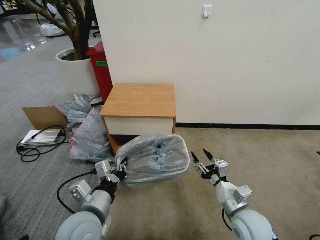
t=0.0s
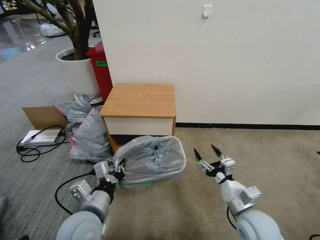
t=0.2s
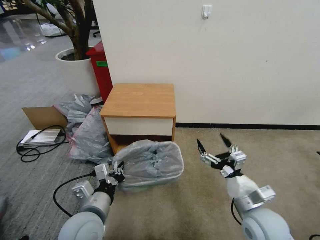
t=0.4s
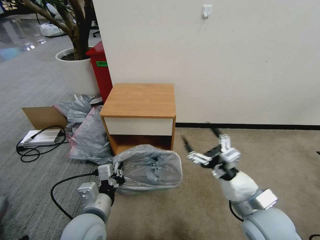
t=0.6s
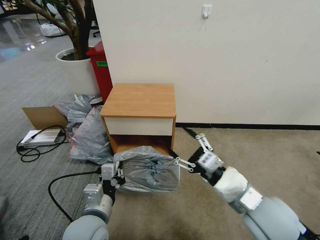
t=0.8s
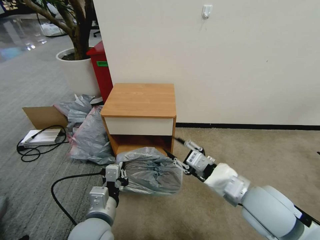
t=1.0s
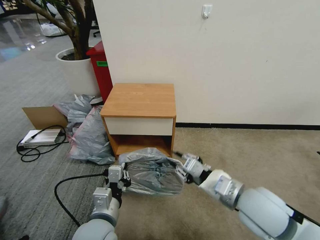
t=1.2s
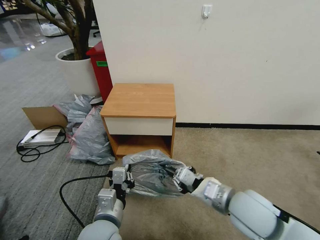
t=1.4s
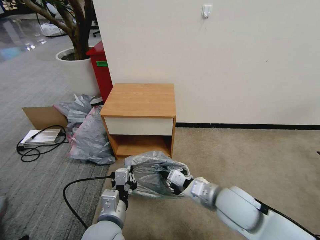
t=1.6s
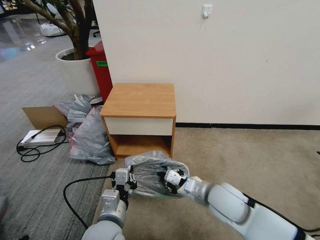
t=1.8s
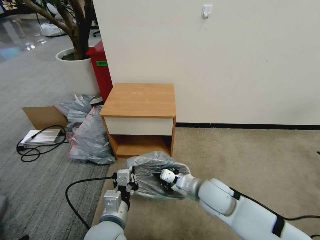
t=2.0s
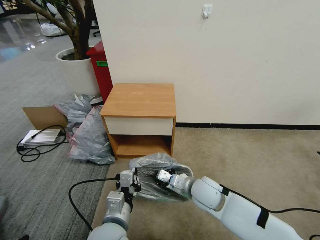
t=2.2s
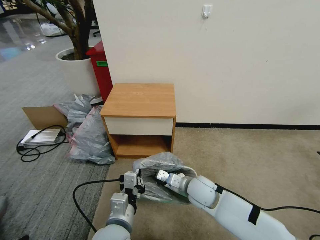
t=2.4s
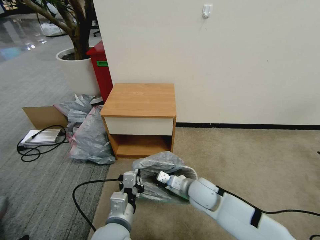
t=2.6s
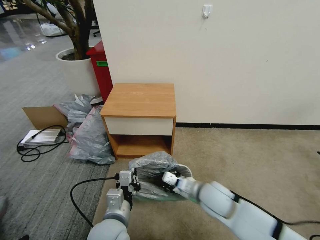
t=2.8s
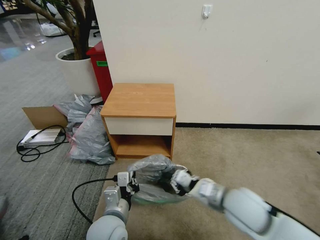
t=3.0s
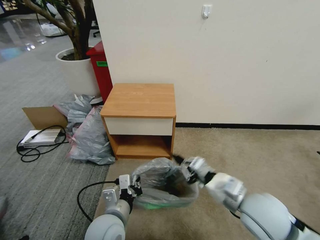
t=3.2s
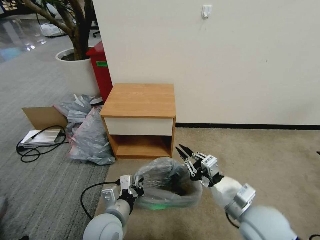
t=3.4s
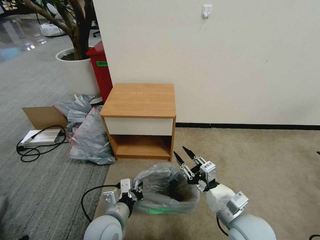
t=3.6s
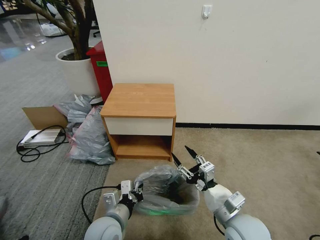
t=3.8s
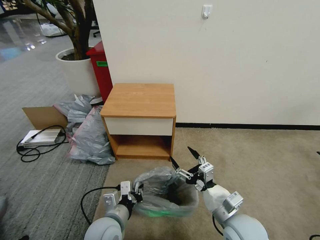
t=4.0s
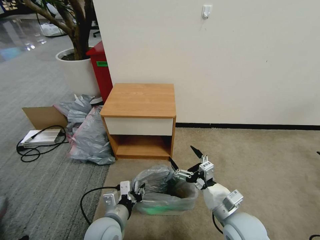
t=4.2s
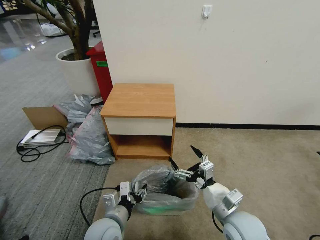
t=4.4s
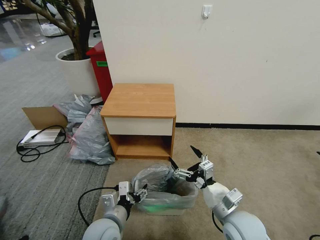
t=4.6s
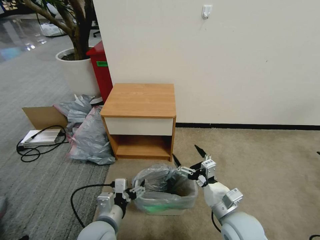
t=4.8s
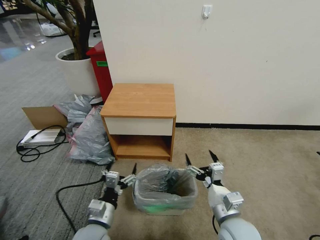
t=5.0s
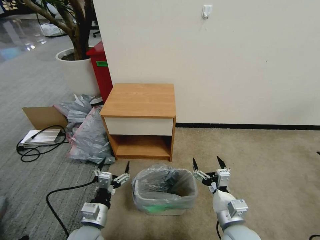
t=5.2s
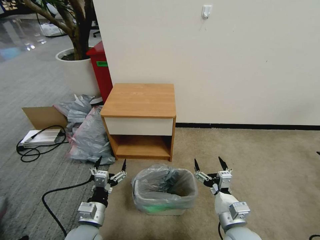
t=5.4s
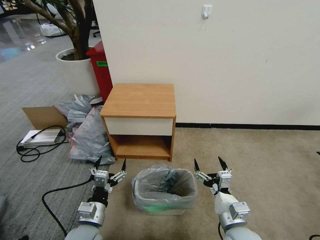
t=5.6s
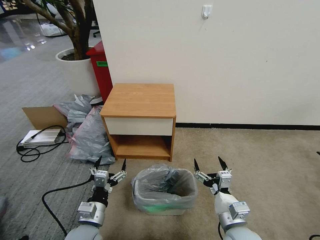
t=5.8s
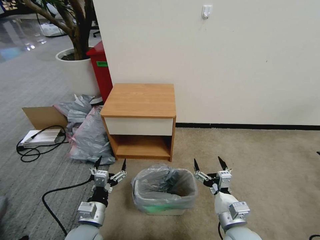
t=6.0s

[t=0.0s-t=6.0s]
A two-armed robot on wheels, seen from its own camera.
Task of the whole recording: Pick up the garbage bag from the table and place it over the trash can.
t=0.0s to t=1.6s: The right gripper moves upward and to the left, approximately 10 cm, and closes. Meanwhile the left gripper ends up roughly 5 cm from where it was.
t=1.6s to t=3.0s: The right gripper travels downward and back again, roughly 10 cm each way.
t=3.0s to t=4.4s: The right gripper ends up roughly 5 cm from where it was, and opens. The left gripper opens up.
t=4.4s to t=6.0s: The left gripper moves to the left, some 5 cm, and opens.

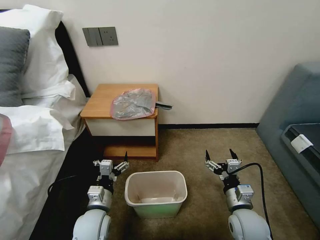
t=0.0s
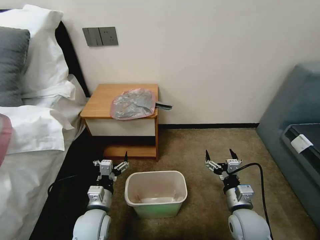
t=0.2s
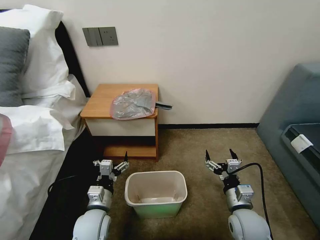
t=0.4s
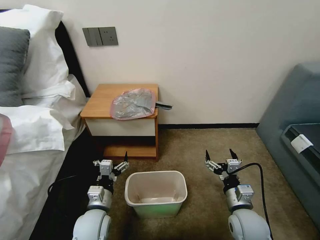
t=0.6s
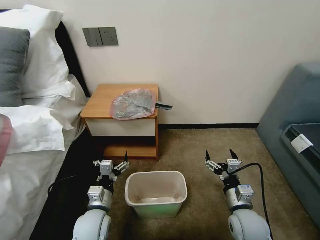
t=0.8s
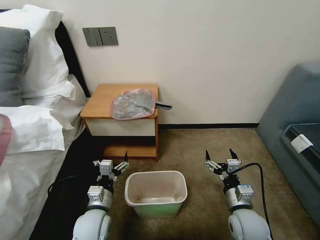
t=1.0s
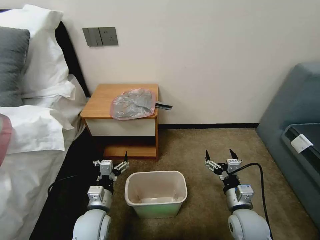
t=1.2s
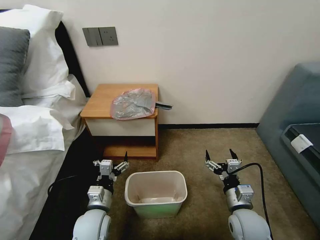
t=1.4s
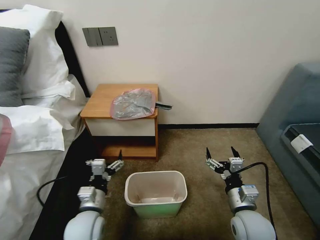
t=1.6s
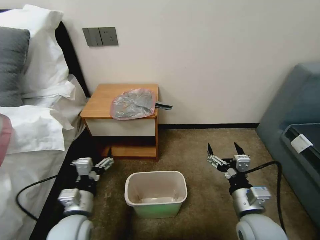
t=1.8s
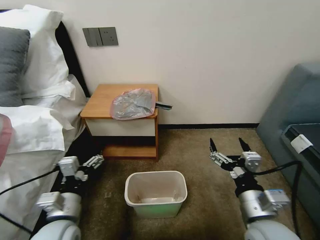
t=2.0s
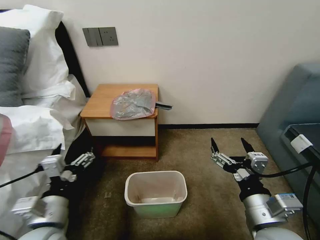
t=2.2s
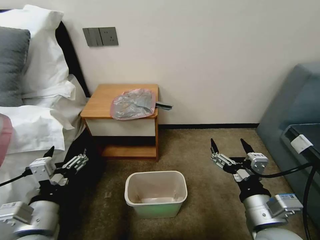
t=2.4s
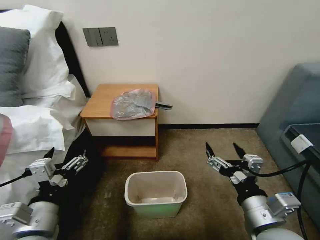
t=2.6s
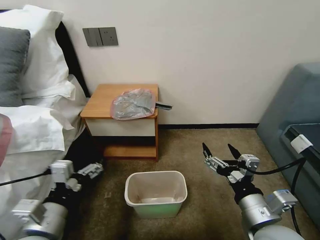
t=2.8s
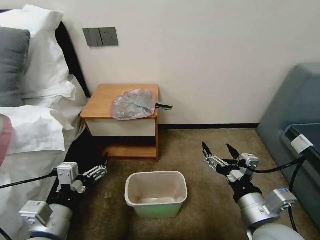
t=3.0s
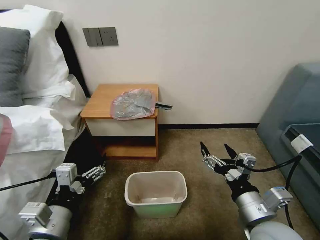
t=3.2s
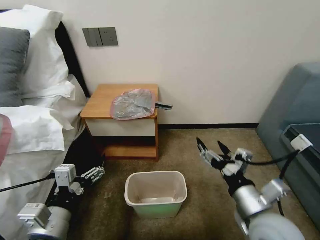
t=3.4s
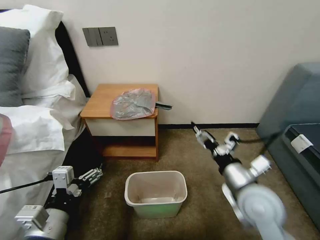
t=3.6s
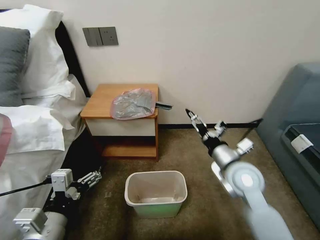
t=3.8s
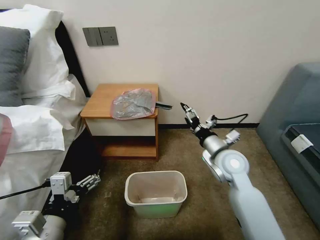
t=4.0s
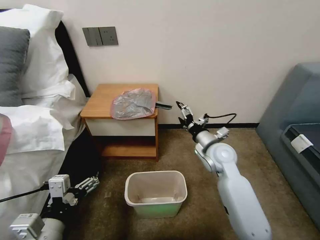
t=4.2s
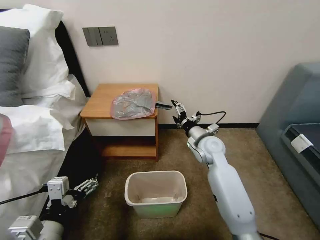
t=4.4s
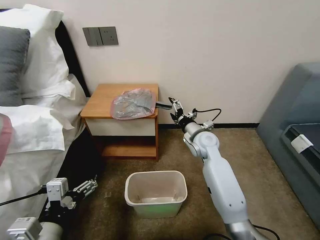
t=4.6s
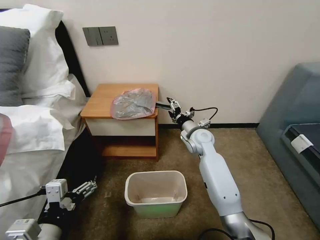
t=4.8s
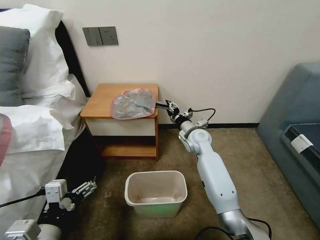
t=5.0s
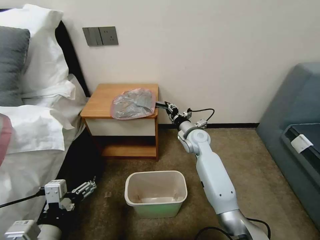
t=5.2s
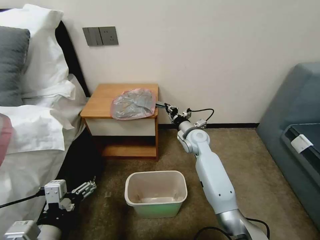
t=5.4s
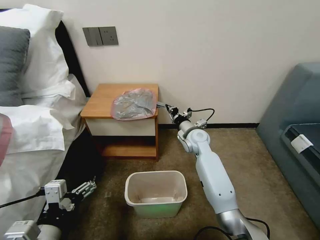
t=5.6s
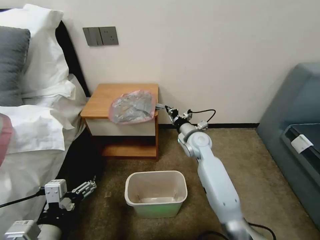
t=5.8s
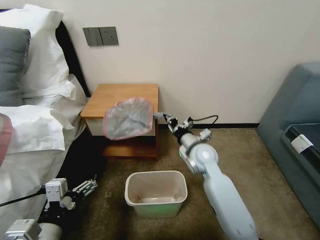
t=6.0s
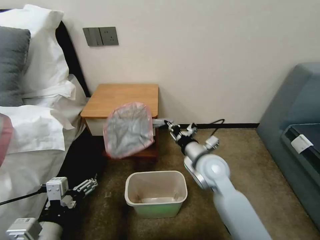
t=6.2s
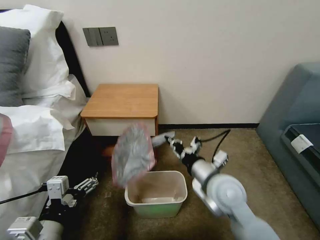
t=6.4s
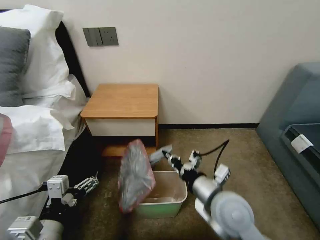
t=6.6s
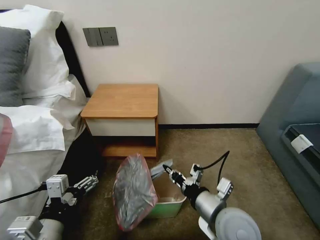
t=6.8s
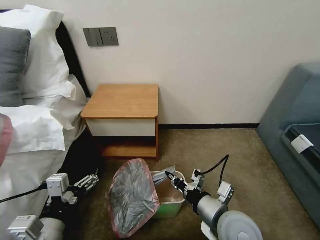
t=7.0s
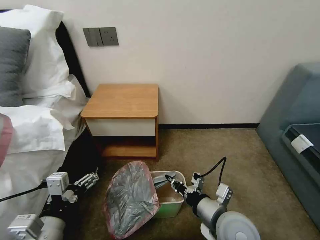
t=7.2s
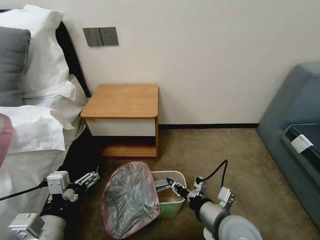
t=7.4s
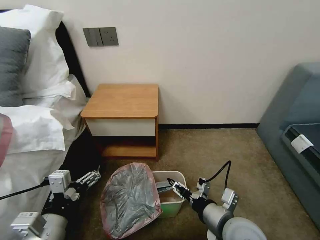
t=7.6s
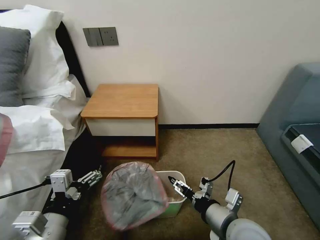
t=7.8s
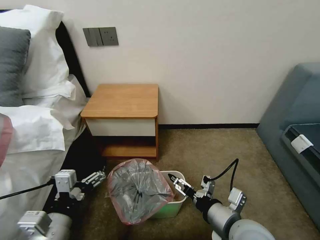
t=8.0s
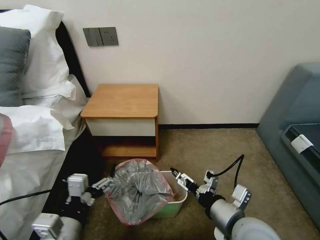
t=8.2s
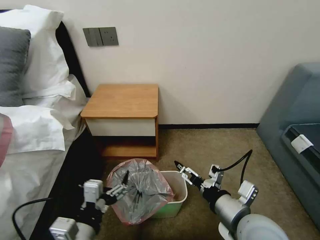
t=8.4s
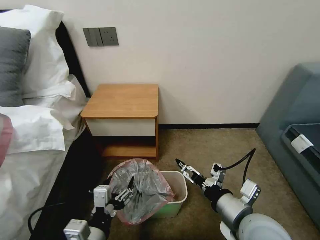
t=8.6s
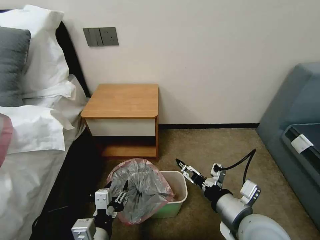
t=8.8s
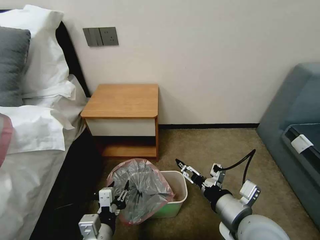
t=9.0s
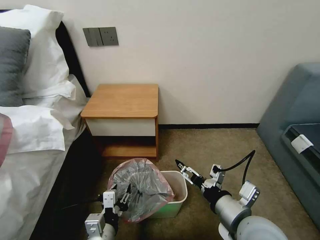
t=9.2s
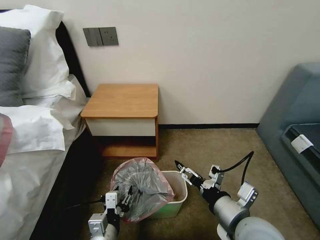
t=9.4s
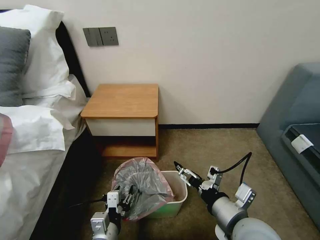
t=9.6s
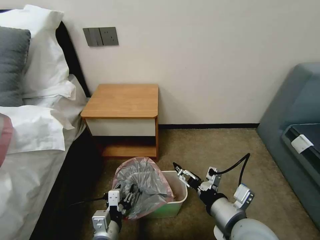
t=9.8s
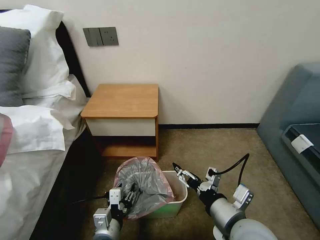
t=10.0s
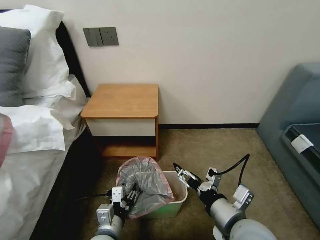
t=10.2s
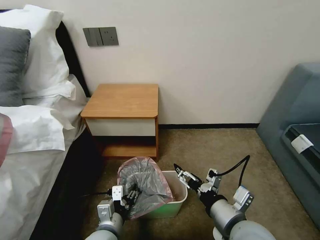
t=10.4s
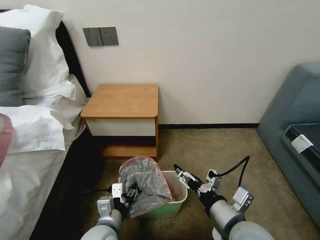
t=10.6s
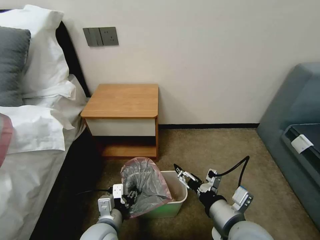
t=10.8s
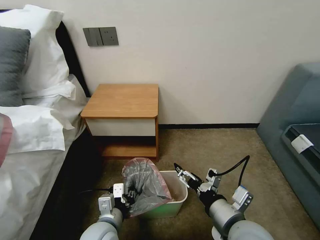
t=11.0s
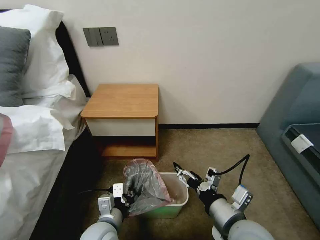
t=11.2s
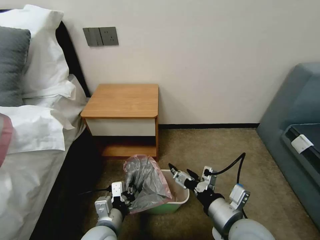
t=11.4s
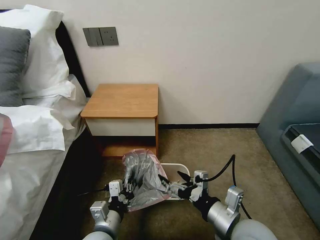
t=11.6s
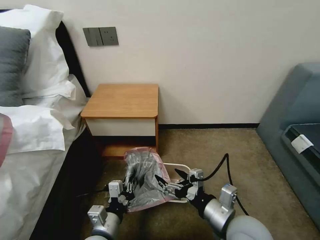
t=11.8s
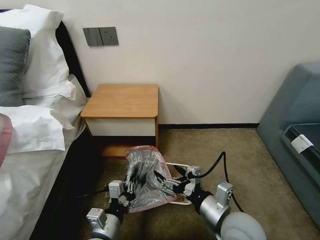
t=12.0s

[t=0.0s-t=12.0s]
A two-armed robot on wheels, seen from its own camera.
Task of the whole recording: Pick up the garbage bag from the table and place it over the trash can.
t=1.6s to t=3.0s: The two grippers go approximately 15 cm upward and backward.
t=3.0s to t=4.4s: The right gripper travels forward by approximately 30 cm.
t=4.4s to t=6.0s: The right gripper shifts by approximately 5 cm, and closes its fingers.
t=6.0s to t=7.6s: The right gripper heads backward, covering about 20 cm, and opens its fingers.
t=7.6s to t=9.0s: The right gripper opens. The left gripper heads to the right and downward, covering some 10 cm, and closes its fingers.
t=9.0s to t=10.4s: The left gripper shifts by approximately 5 cm.
t=10.4s to t=12.0s: The left gripper closes.

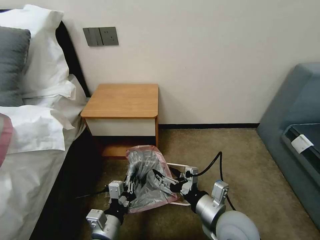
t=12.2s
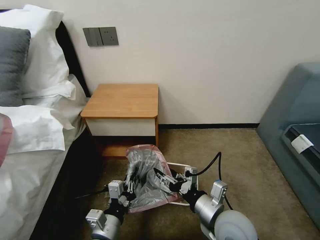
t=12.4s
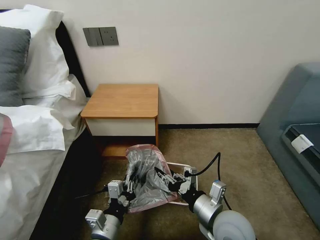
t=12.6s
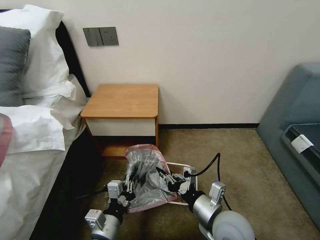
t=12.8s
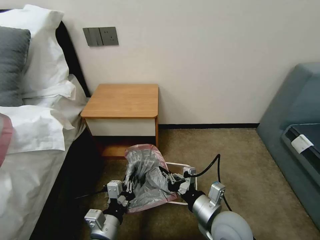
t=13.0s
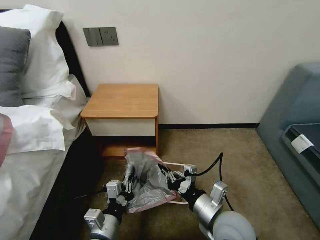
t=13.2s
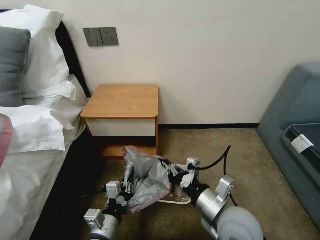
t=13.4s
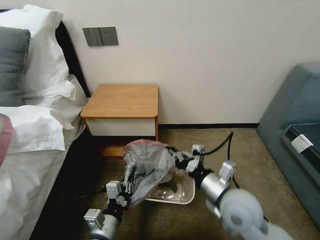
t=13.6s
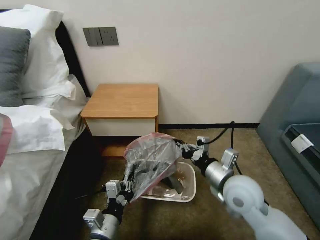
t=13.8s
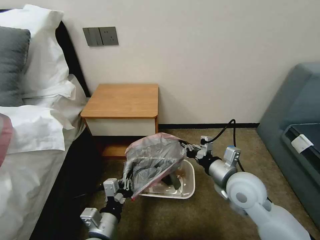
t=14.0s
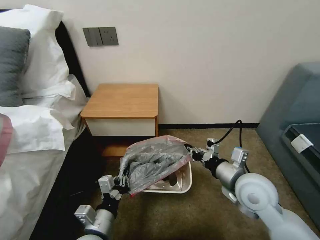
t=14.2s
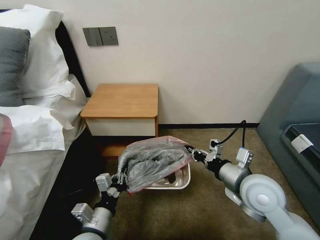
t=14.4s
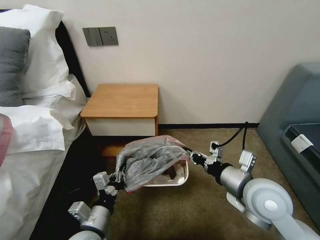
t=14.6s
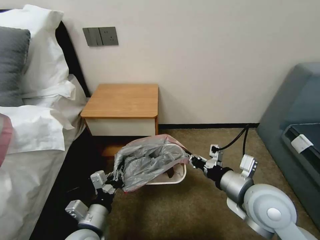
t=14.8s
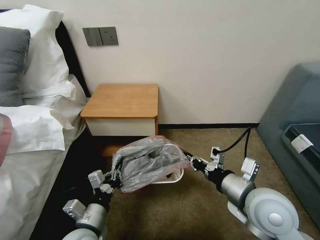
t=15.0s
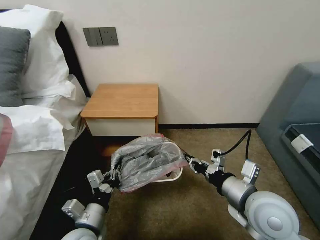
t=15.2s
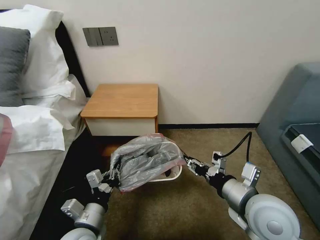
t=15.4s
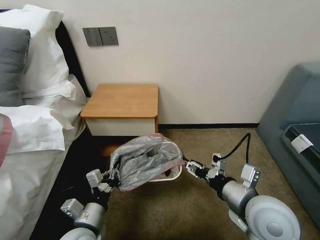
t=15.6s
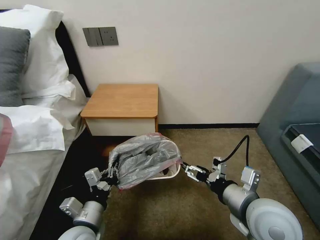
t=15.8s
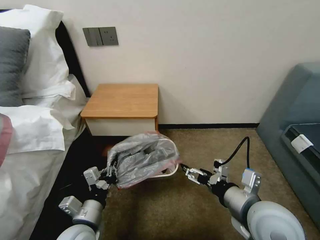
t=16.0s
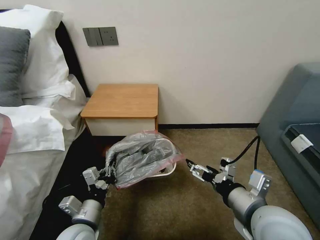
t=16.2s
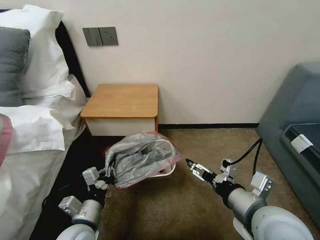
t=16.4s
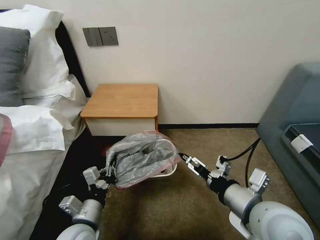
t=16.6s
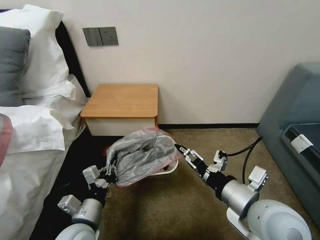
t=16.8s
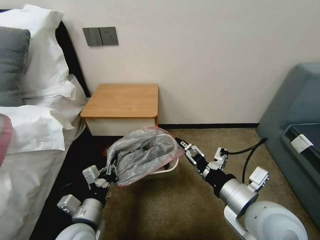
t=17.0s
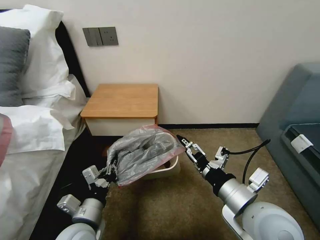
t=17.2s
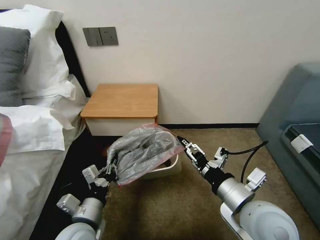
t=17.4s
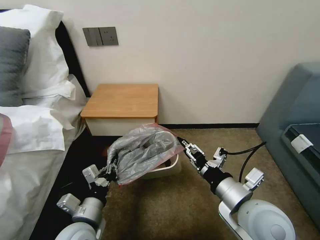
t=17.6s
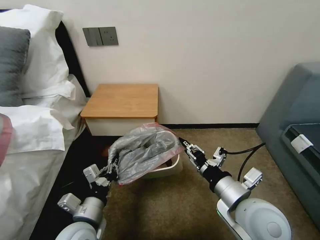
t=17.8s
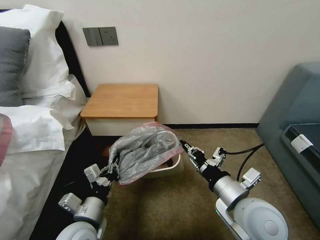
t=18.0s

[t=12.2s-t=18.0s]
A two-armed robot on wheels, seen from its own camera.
Task of the whole recording: Pick up the garbage bag from the table and place it over the trash can.
t=12.2s to t=13.6s: The right gripper closes.
t=13.6s to t=15.0s: The right gripper ends up roughly 5 cm from where it was.
t=15.0s to t=16.6s: The right gripper opens up.
t=16.6s to t=18.0s: The right gripper closes its fingers.
